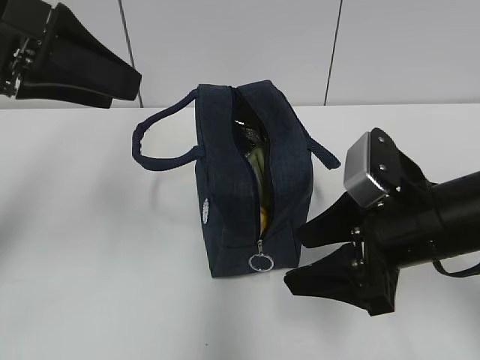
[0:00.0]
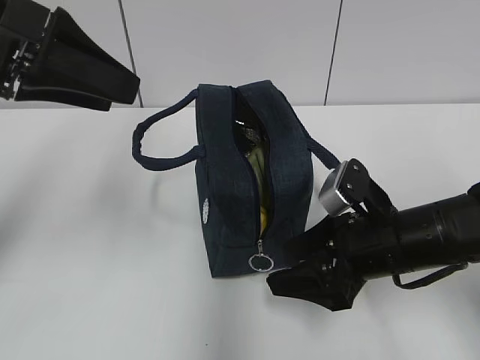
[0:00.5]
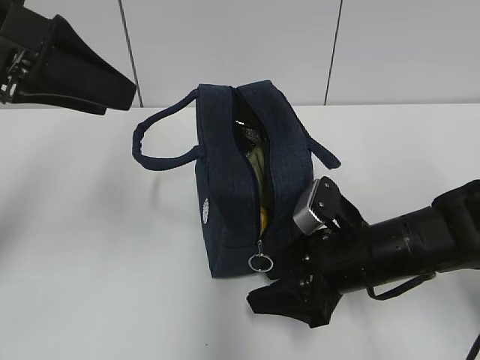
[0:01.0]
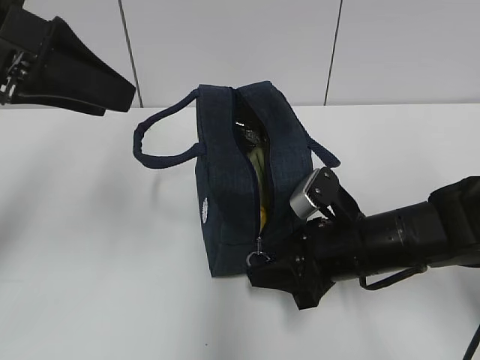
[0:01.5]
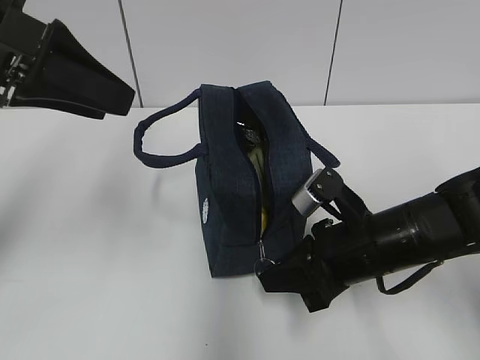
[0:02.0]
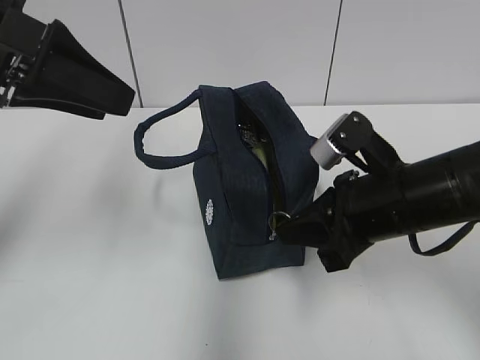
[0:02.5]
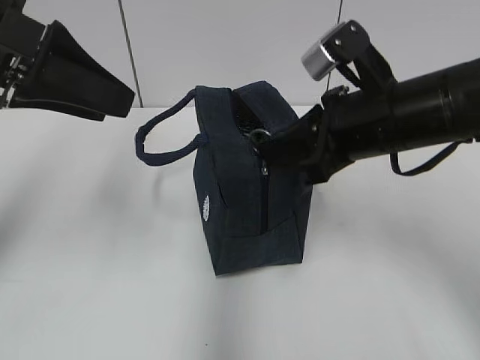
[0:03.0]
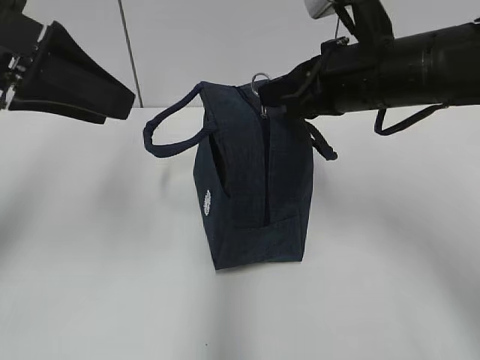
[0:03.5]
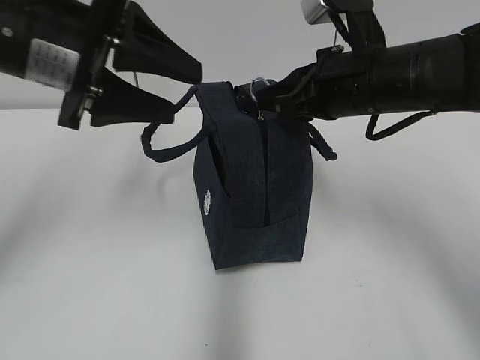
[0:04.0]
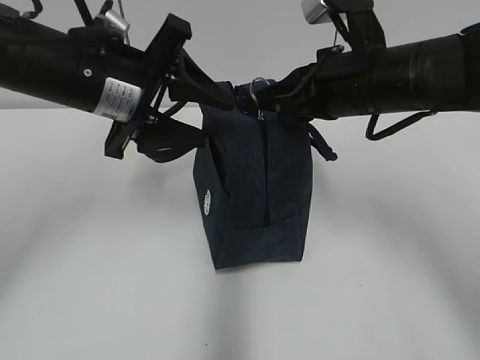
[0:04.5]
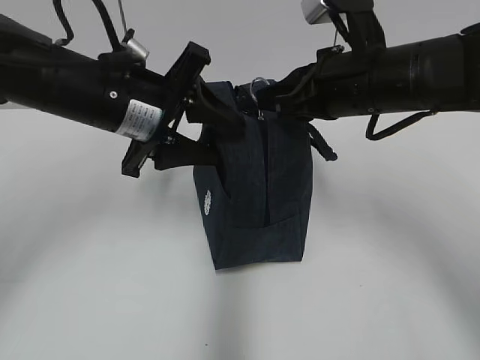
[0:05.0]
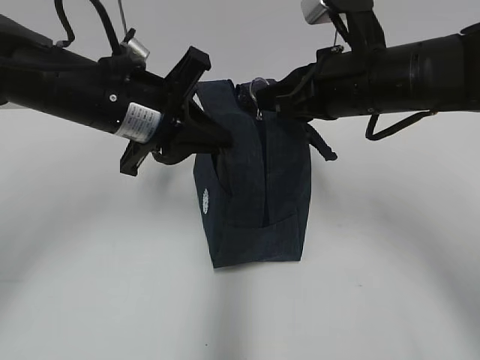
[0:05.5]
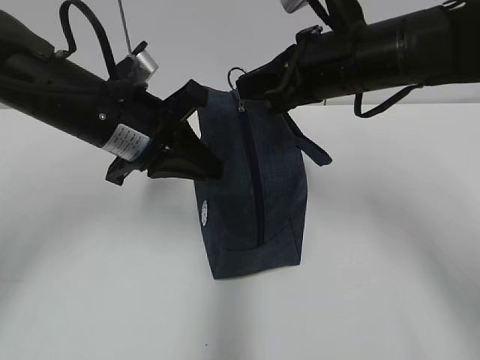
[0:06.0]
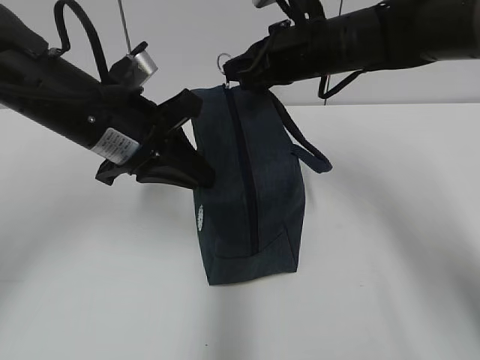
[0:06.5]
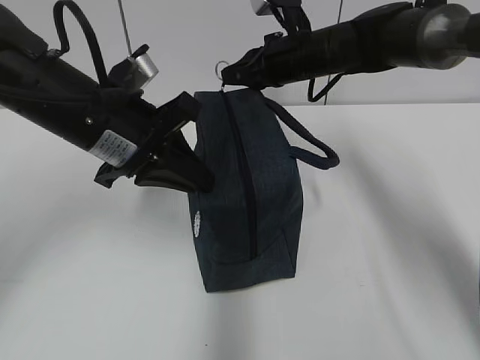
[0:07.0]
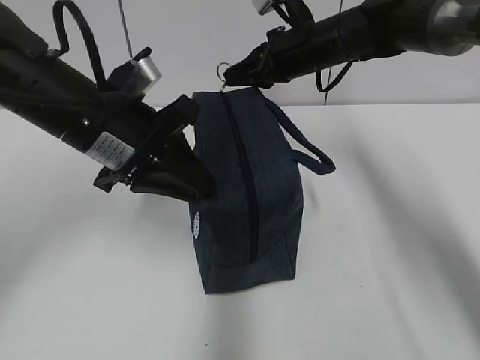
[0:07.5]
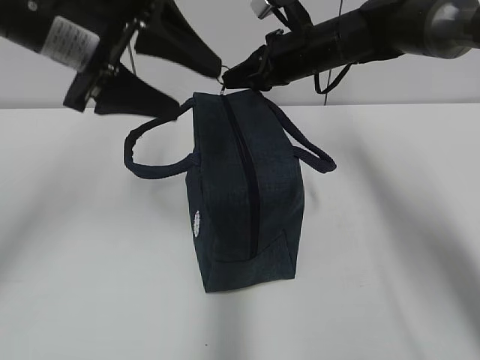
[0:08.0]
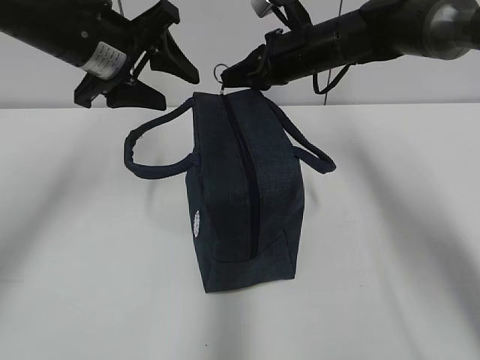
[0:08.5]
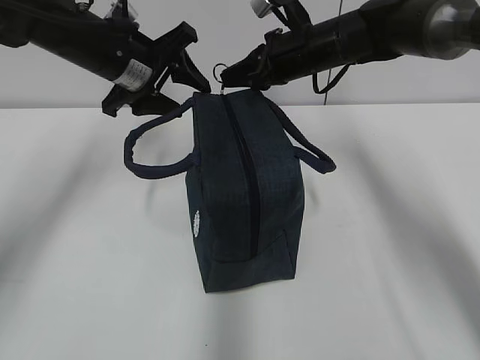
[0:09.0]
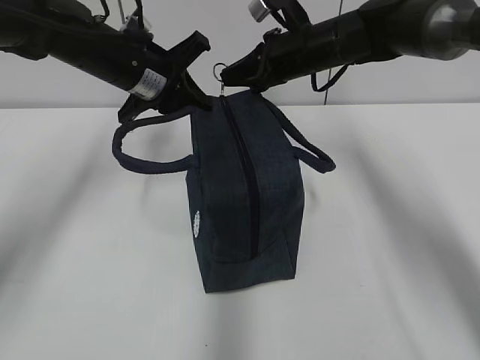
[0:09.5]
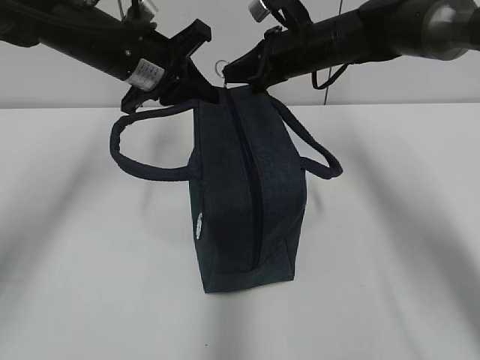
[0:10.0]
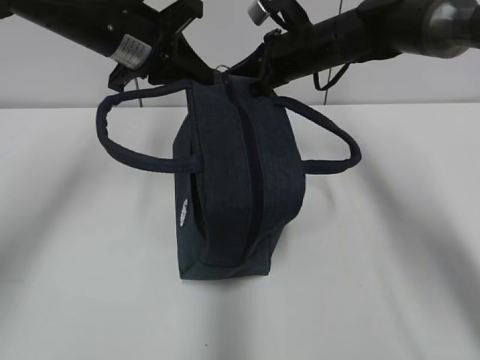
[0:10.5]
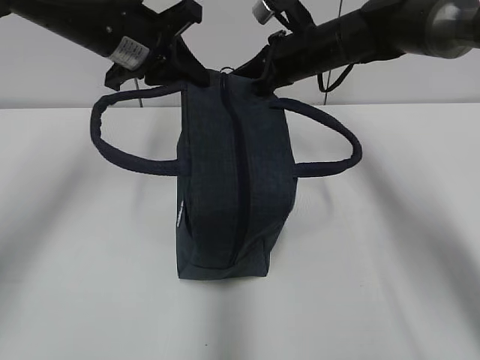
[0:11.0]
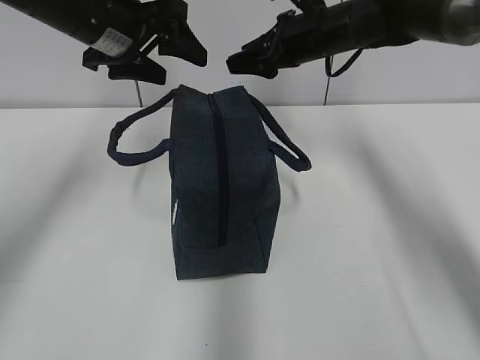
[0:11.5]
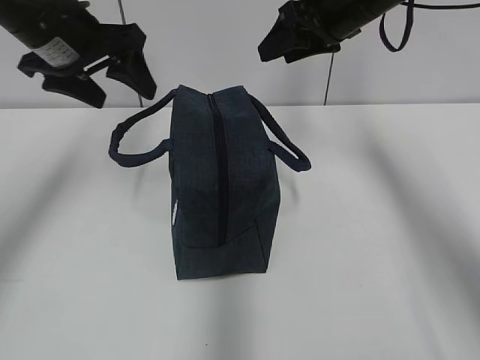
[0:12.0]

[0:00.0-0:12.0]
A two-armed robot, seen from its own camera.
Step, 0.0 to 7.5 s: Grab the lunch bag with your left hand.
0.0 to 2.0 s: The right gripper travels downward by about 5 cm, and closes up.
2.0 to 4.0 s: The right gripper goes roughly 15 cm upward and forward.
4.0 to 6.0 s: The left gripper heads downward, covering approximately 10 cm, and closes.
6.0 to 8.0 s: The left gripper moves upward, about 10 cm, and opens. Meanwhile the right gripper travels forward by about 15 cm.
8.0 to 10.0 s: The left gripper moves forward and downward, approximately 15 cm, and closes its fingers.
10.0 to 12.0 s: The right gripper moves upward, some 5 cm, and opens its fingers, while the left gripper heads to the left, covering roughly 5 cm, and opens up.

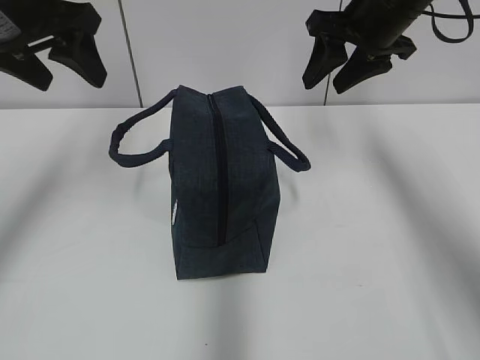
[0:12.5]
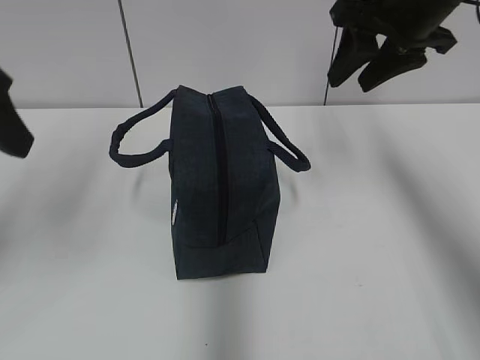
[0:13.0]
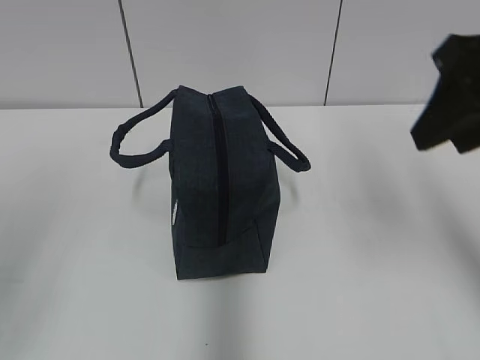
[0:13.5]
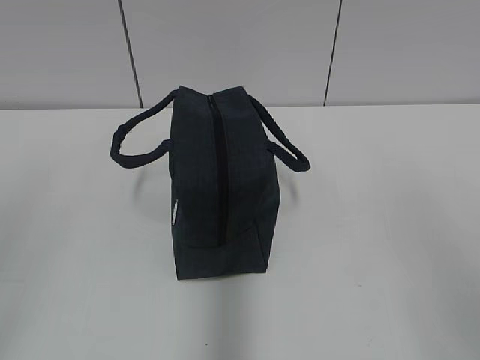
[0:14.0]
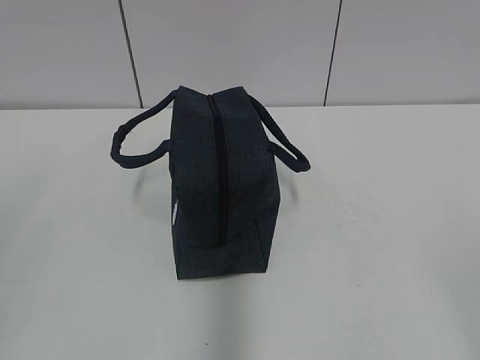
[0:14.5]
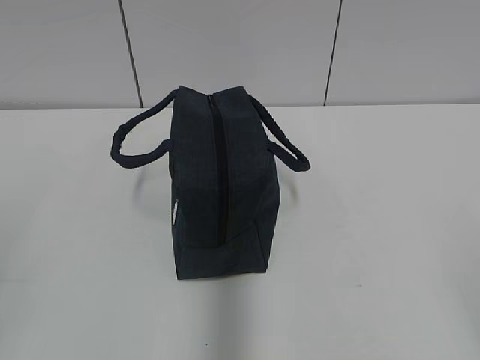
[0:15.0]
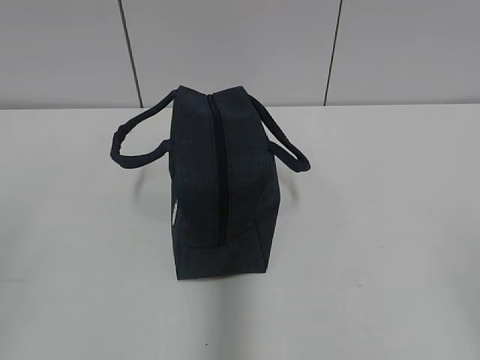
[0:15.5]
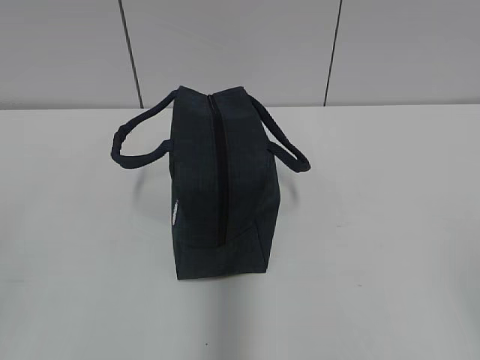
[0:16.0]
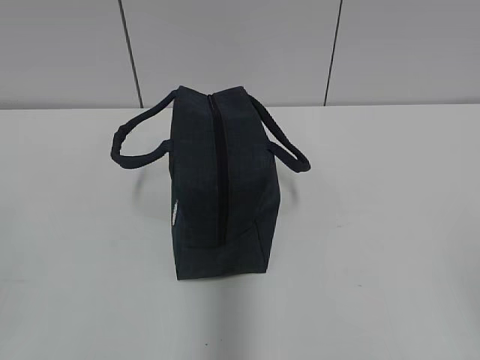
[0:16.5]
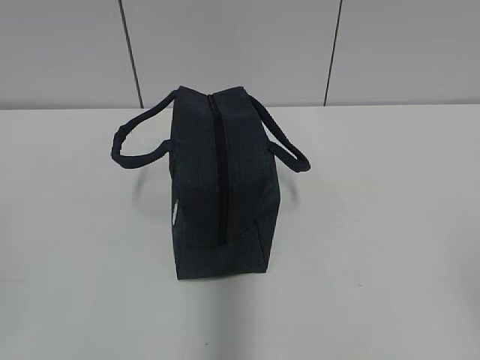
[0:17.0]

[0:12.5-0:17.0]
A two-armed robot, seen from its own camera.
12.5 to 14.5 s: Both grippers move backward, some 40 cm.

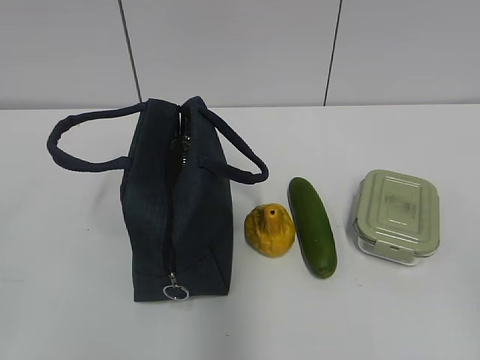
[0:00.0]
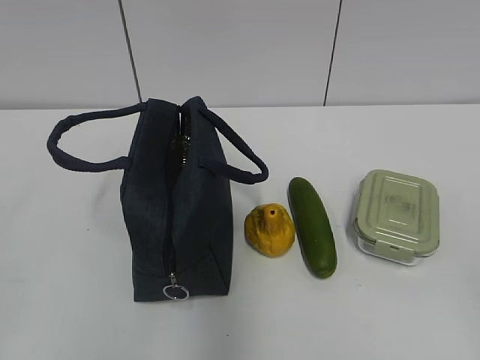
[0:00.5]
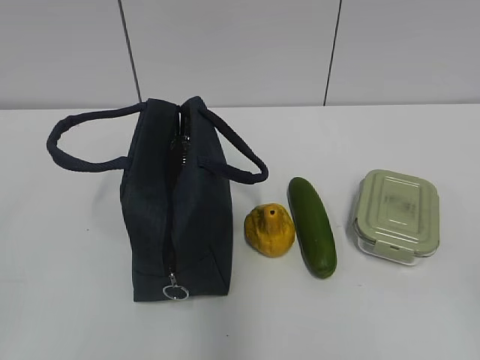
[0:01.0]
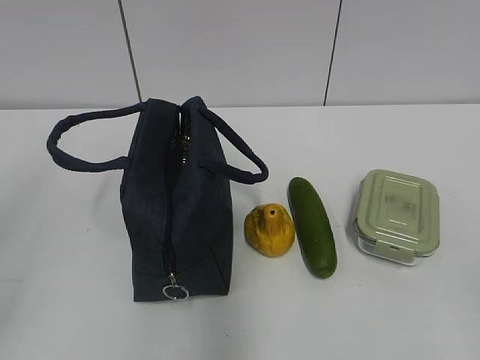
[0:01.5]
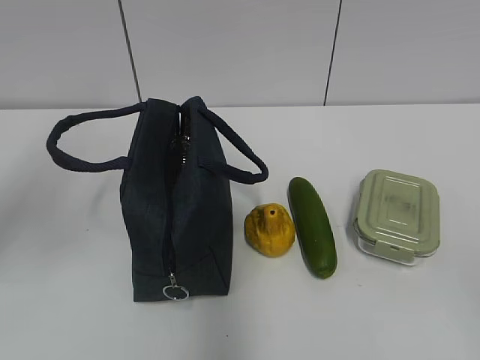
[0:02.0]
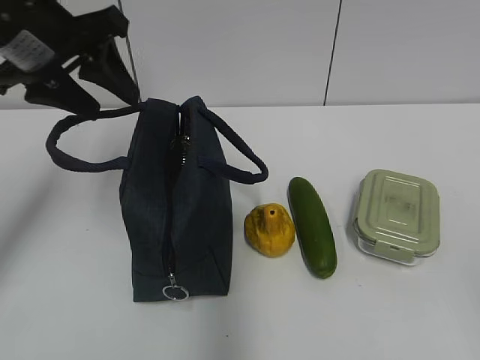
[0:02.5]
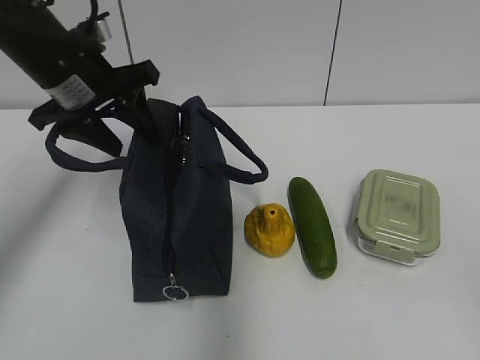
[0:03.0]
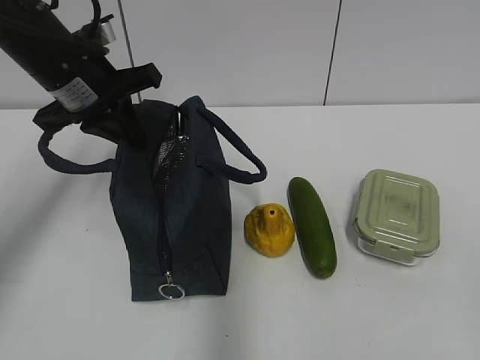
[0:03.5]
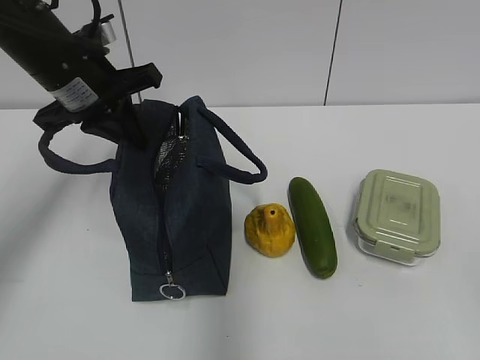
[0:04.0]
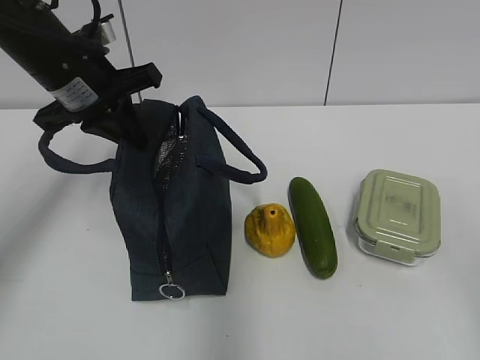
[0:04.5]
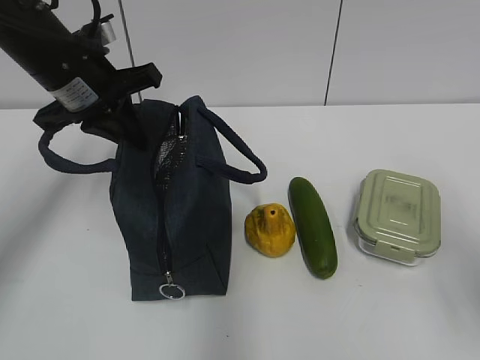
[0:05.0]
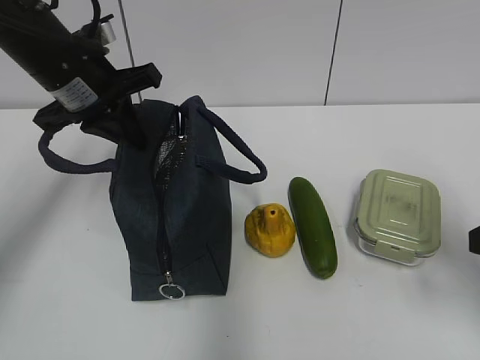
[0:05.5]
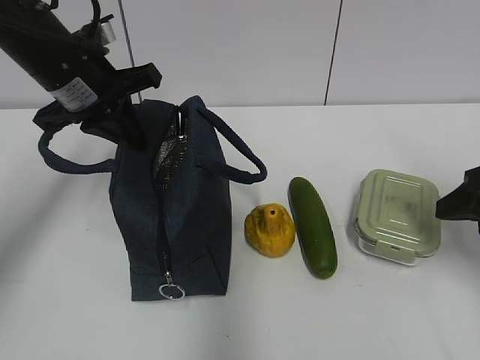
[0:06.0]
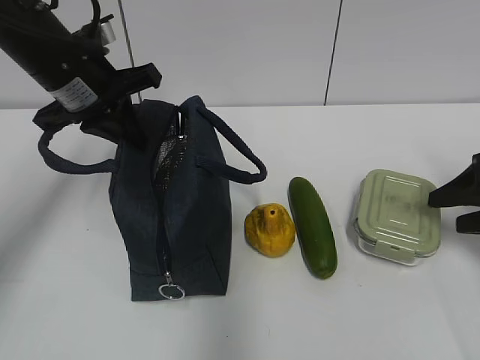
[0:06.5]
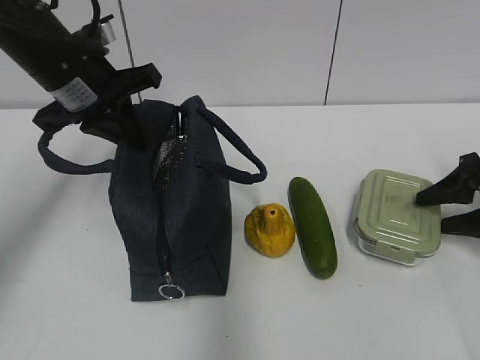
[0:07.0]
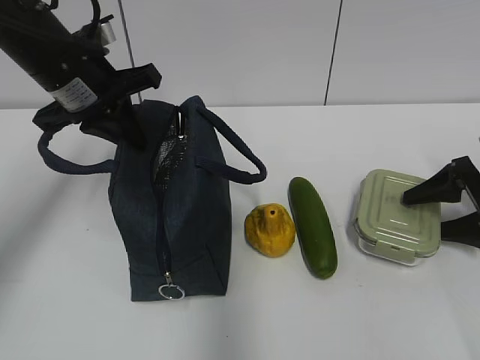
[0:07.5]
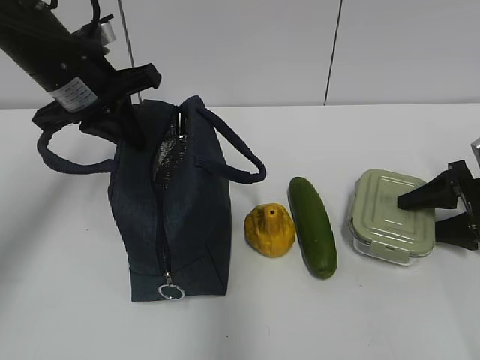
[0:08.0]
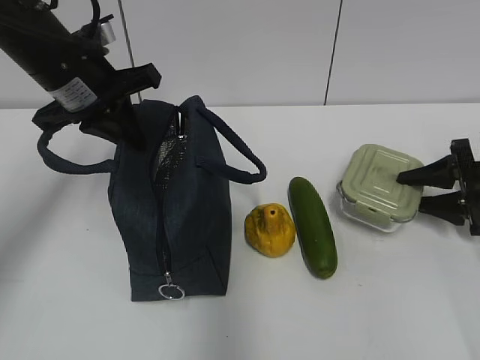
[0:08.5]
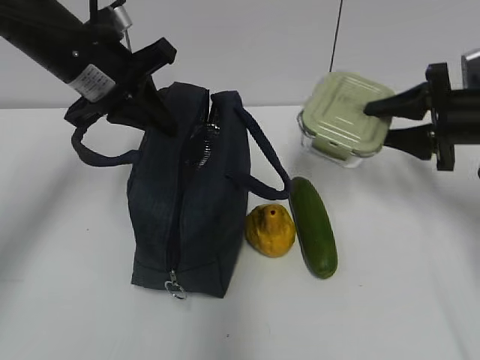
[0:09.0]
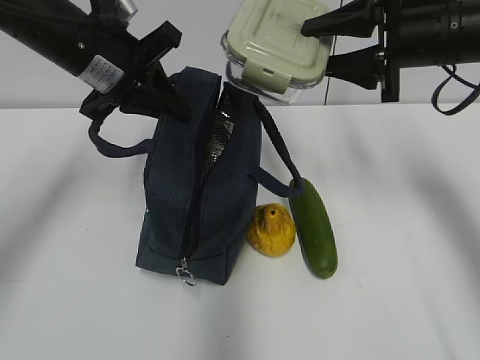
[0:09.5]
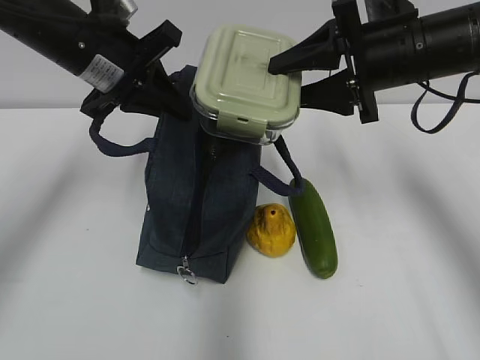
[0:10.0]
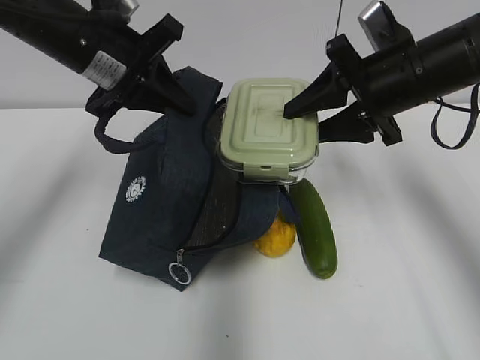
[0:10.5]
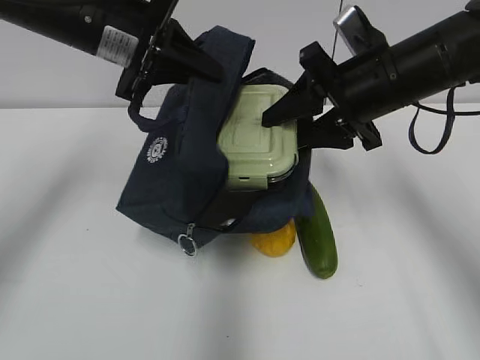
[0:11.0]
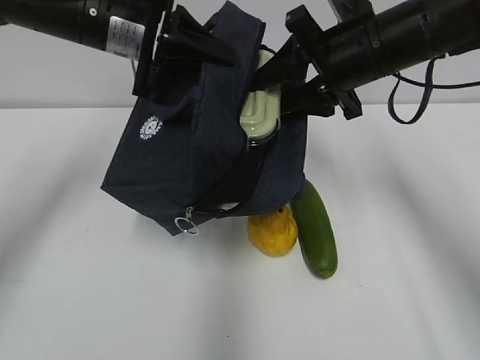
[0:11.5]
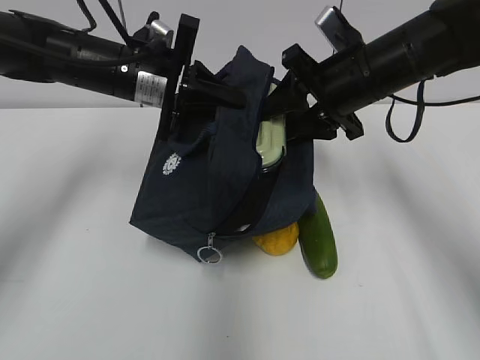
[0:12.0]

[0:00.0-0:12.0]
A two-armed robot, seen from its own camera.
Step, 0.0 to 7.5 s: Grab the lunch box with your right hand.
2.0 to 4.0 s: The left gripper shifts approximately 20 cm forward, downward and to the right, and closes its fingers.
4.0 to 6.0 s: The right gripper travels forward by some 25 cm.
6.0 to 8.0 s: The right gripper heads downward, forward and to the right, covering approximately 15 cm.
8.0 to 10.0 s: The right gripper goes about 25 cm upward and to the left.
10.0 to 12.0 s: The left gripper changes place by some 5 cm.
